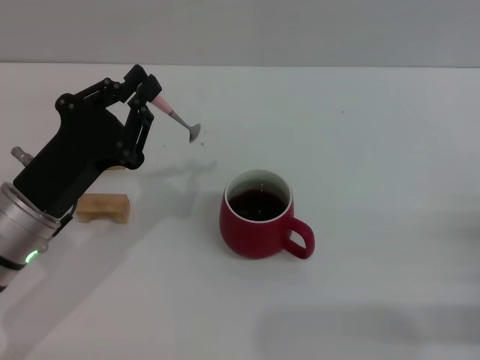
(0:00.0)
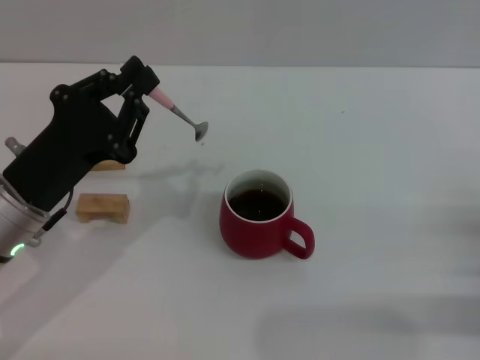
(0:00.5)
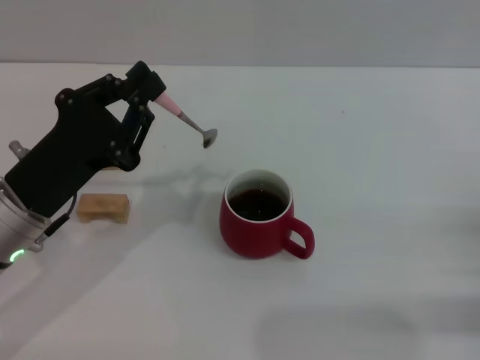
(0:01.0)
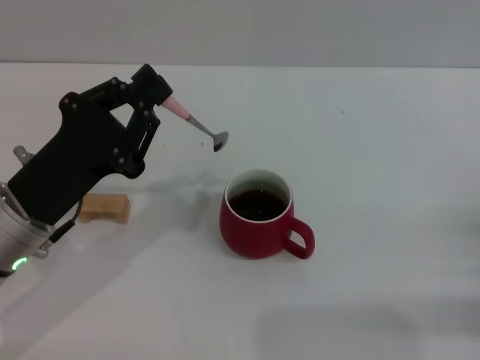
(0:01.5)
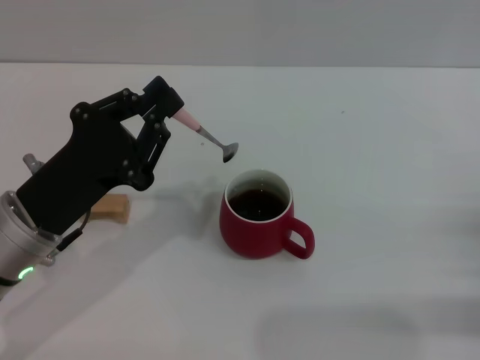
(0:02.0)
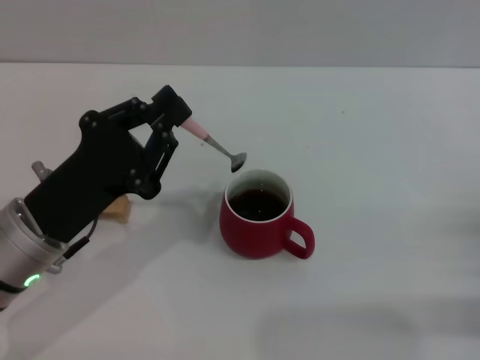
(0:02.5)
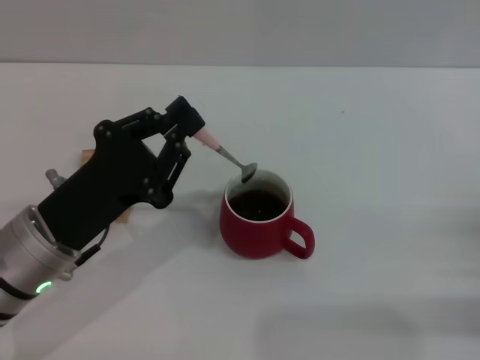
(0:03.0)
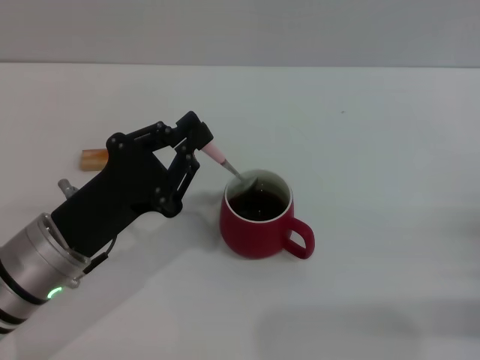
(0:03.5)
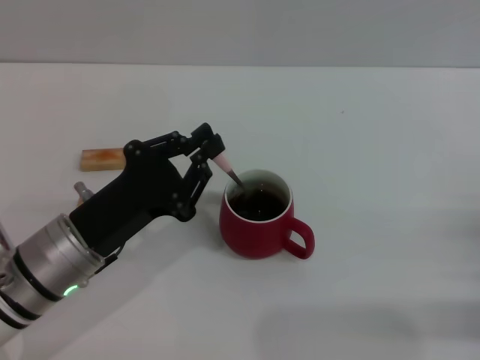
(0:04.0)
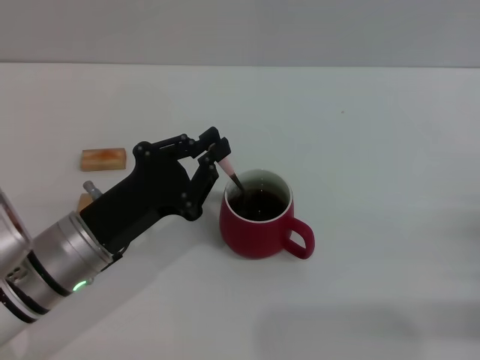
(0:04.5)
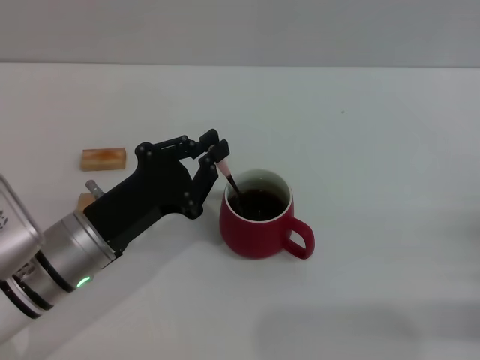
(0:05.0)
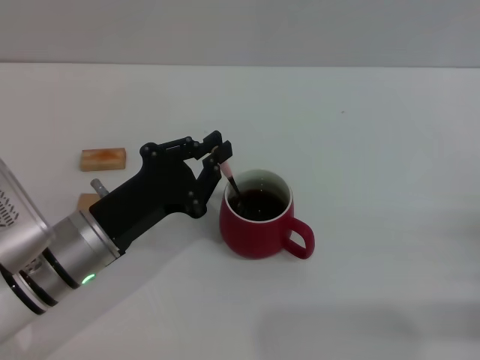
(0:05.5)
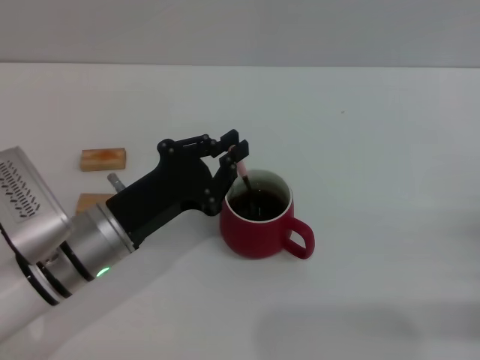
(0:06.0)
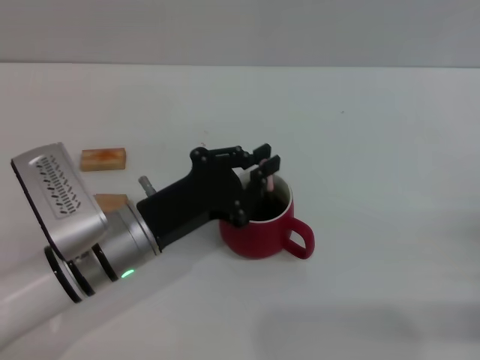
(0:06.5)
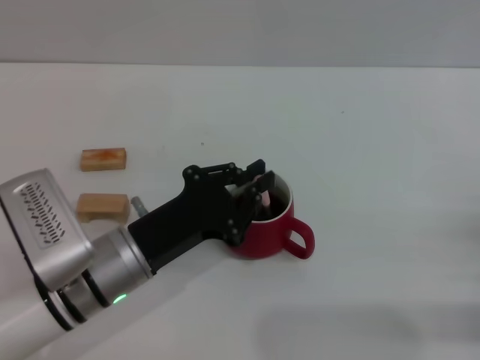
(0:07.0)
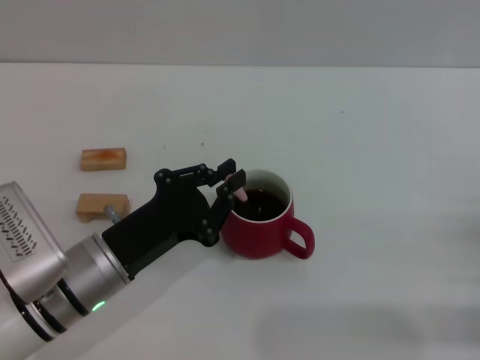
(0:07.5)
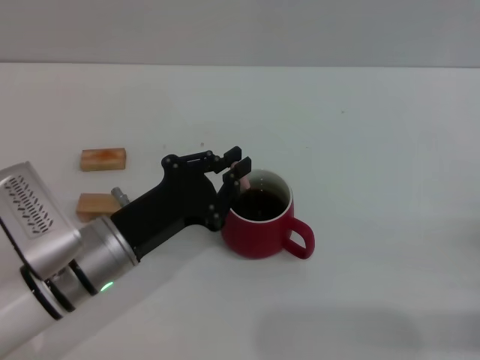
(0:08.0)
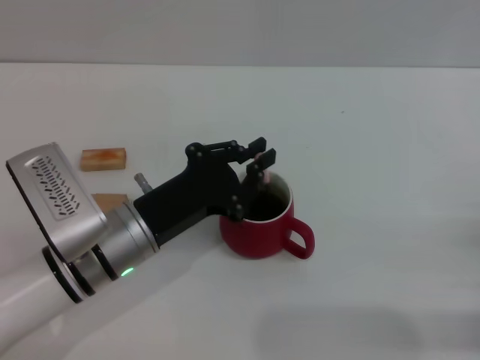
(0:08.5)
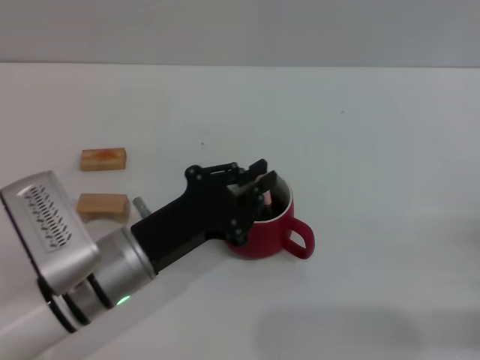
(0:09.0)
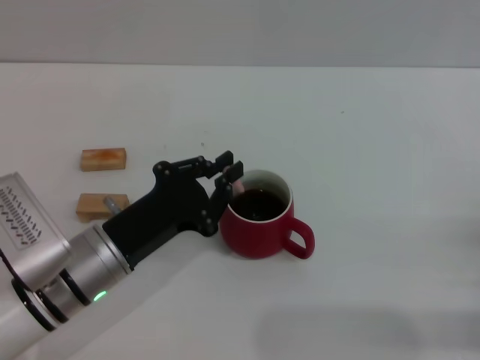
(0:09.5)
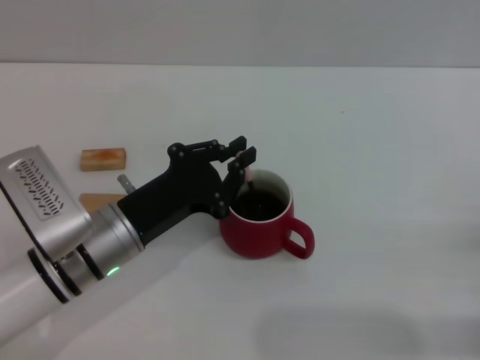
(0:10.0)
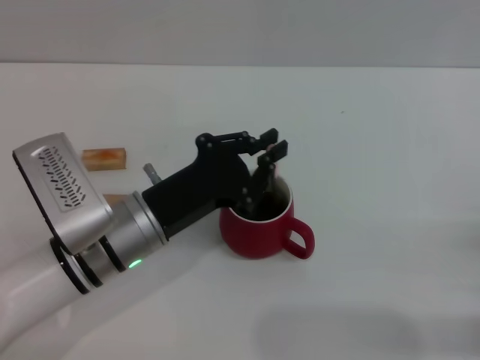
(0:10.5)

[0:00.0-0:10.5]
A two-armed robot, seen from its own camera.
Task of the whole recording: Move the red cup to the center, lift the pink spoon, stir it three times in the cup, and put the spoon into the cup.
0:00.0 to 0:04.0: There are only small adjustments of the grippers.
0:04.0 to 0:10.5: The grippers move only a little.

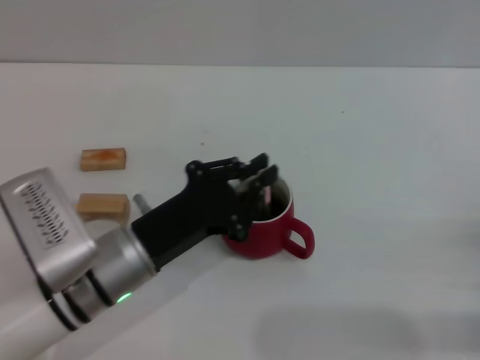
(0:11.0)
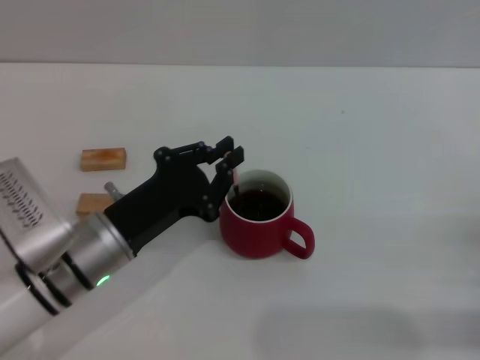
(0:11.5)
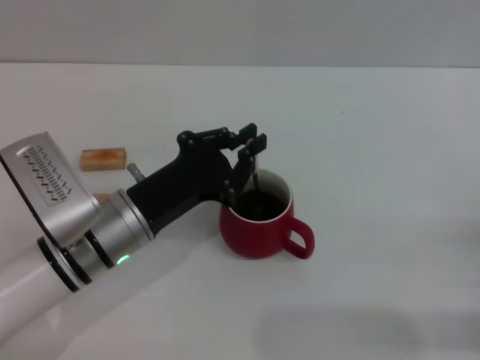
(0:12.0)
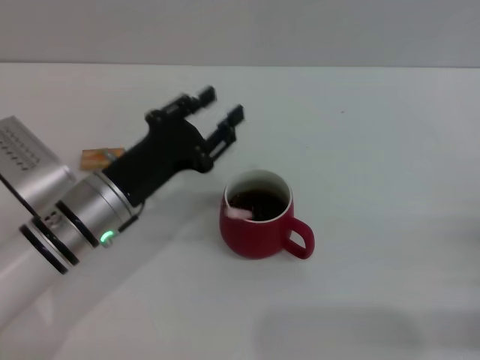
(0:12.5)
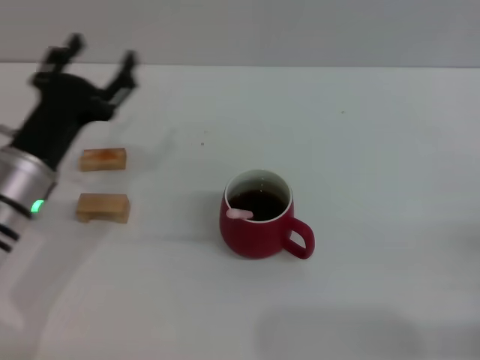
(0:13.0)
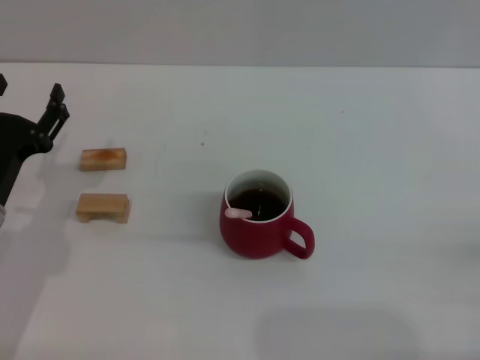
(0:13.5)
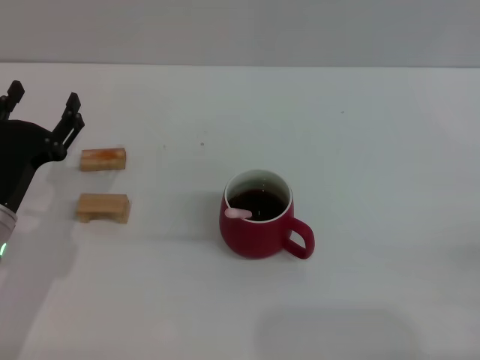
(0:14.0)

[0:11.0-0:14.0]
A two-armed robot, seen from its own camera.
Task of the whole recording: Move the red cup to the center, lift the pink spoon, stir it three times in the cup, and put the spoon into the cup.
0:11.0 to 0:12.5: The grippers make only small movements.
0:12.5 to 0:14.0: The right gripper opens; the left gripper goes approximately 10 cm to the left, and opens.

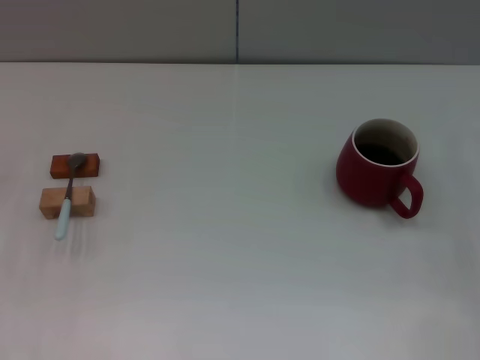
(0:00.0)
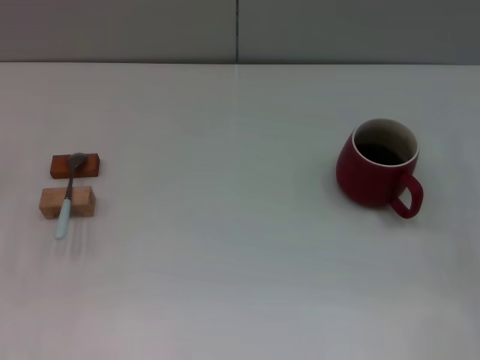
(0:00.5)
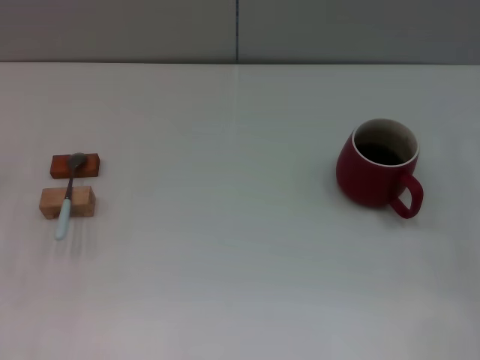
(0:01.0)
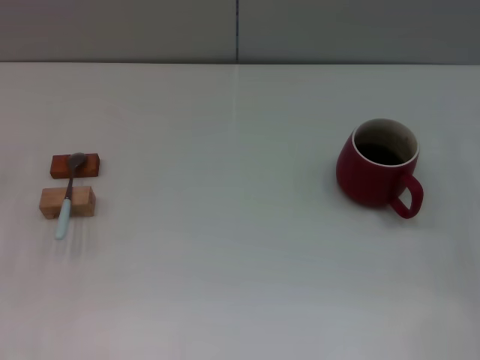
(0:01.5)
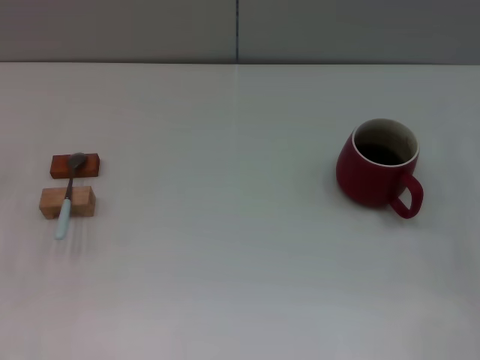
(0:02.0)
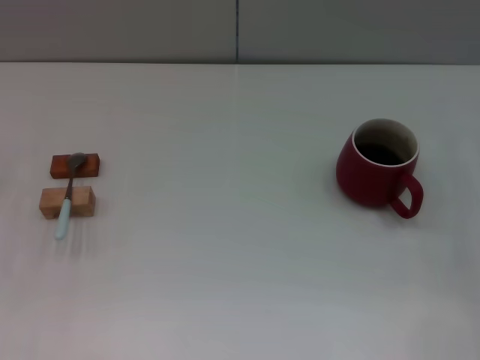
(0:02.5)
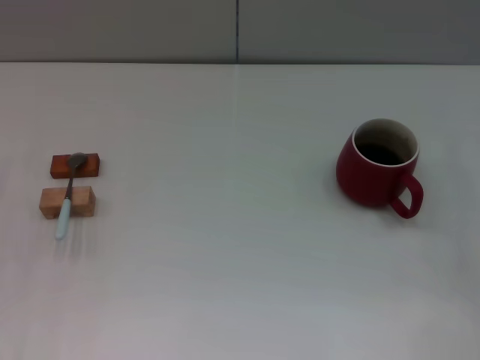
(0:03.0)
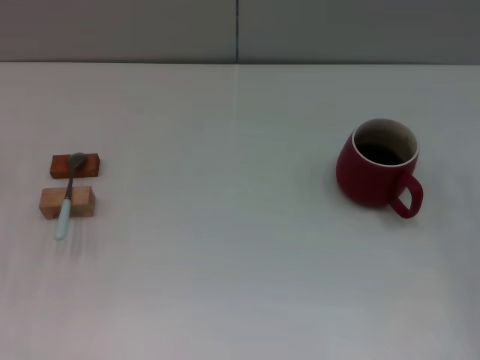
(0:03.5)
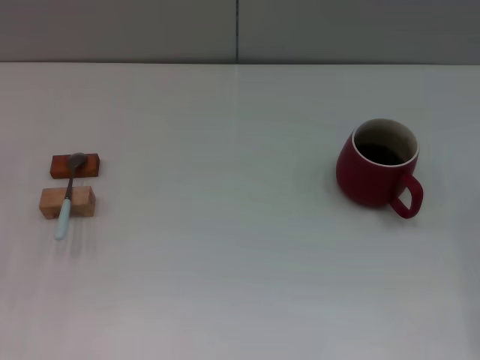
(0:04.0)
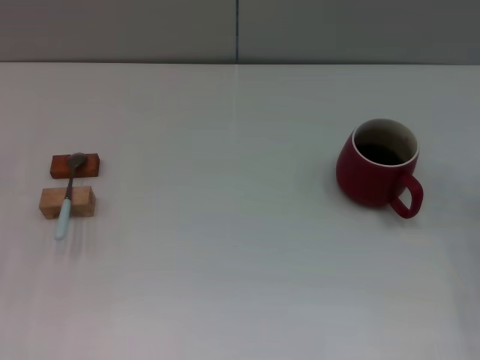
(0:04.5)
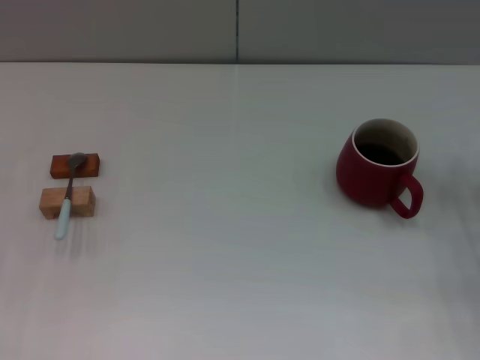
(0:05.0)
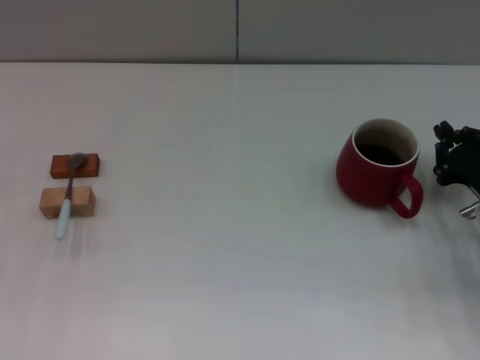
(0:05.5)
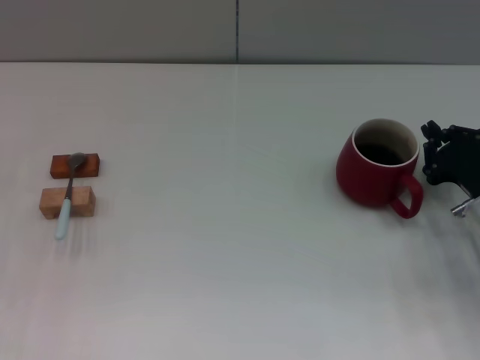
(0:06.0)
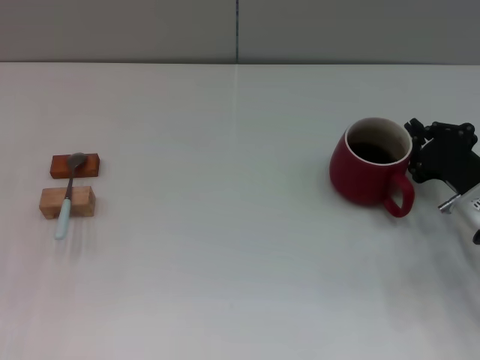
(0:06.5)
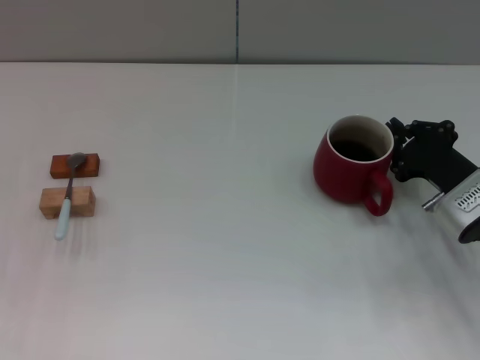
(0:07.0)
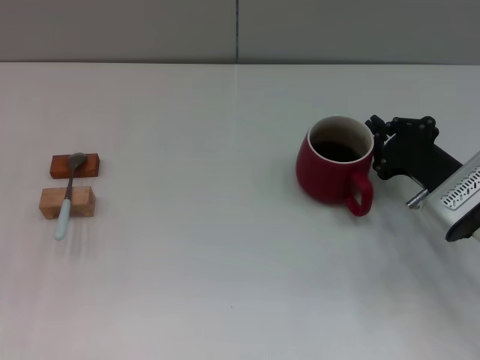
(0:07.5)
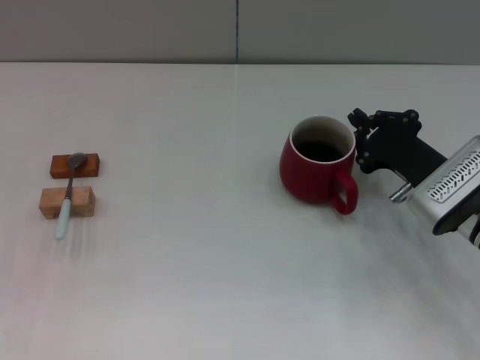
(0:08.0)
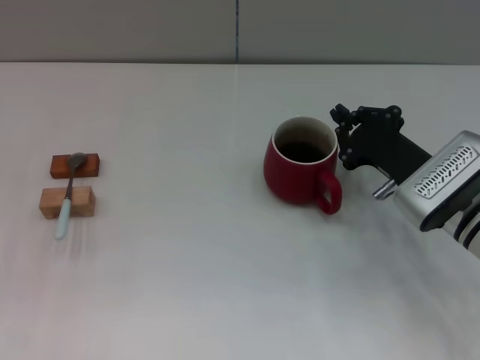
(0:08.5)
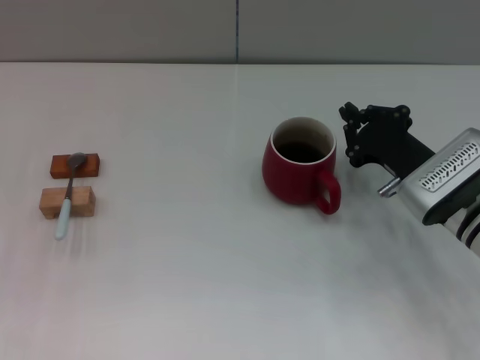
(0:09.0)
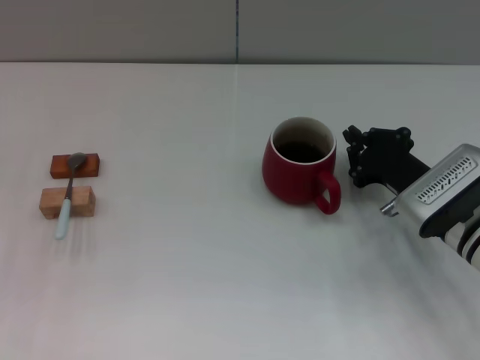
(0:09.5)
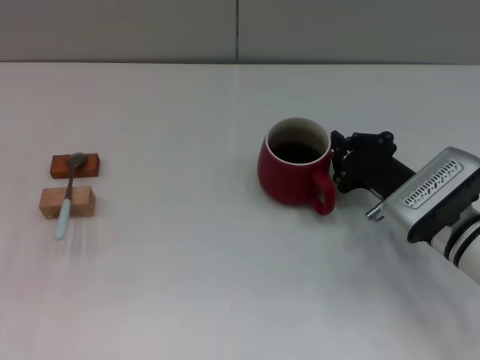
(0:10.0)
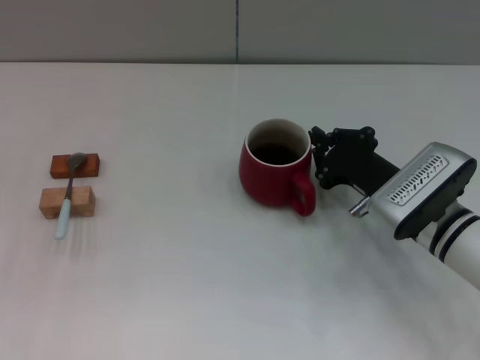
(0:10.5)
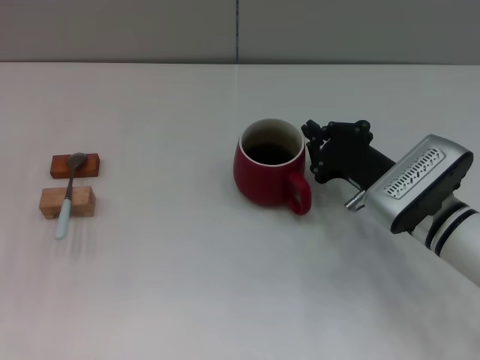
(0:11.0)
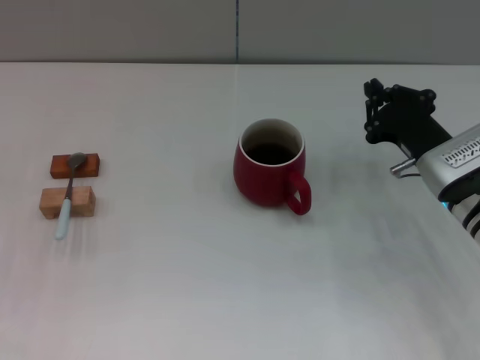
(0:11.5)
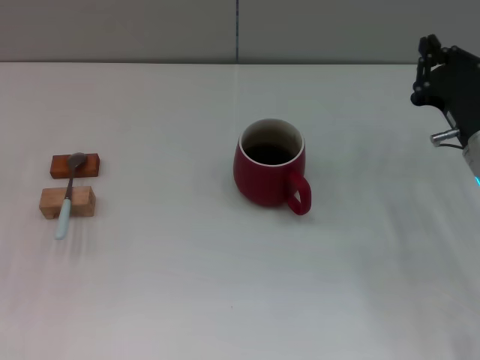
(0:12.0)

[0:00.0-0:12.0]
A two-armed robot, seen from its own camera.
Task of the whole recording: Move the red cup to the center, lift the blue spoon, stir it three times in the cup, and put the spoon into the cup.
Step, 0:00.0 to 0:11.5: Move the cup with coffee to the center of view with the right gripper.
0:00.0 to 0:02.0: Both grippers stay about where they are.
0:04.0 to 0:06.0: The right gripper goes some 5 cm forward.
0:06.0 to 0:08.0: The right gripper travels to the left by approximately 5 cm.
0:08.0 to 0:10.0: The grippers move only a little.
0:10.0 to 0:12.0: The right gripper moves about 5 cm.
